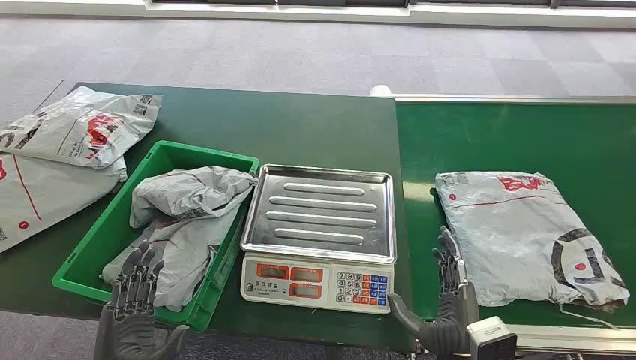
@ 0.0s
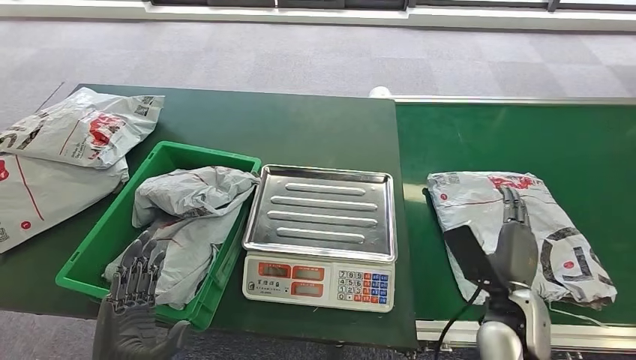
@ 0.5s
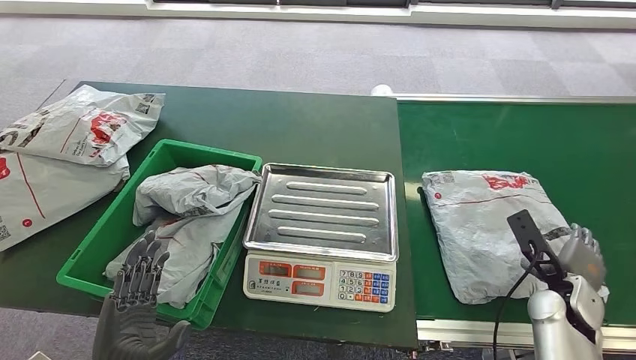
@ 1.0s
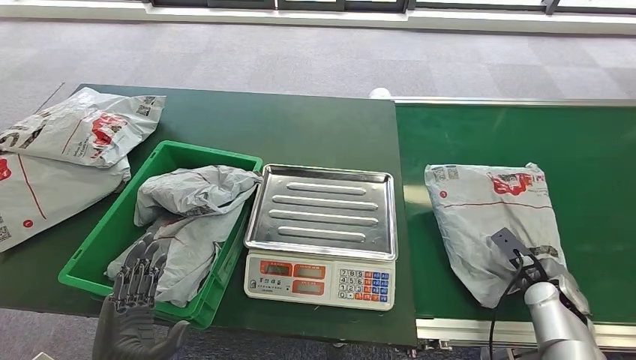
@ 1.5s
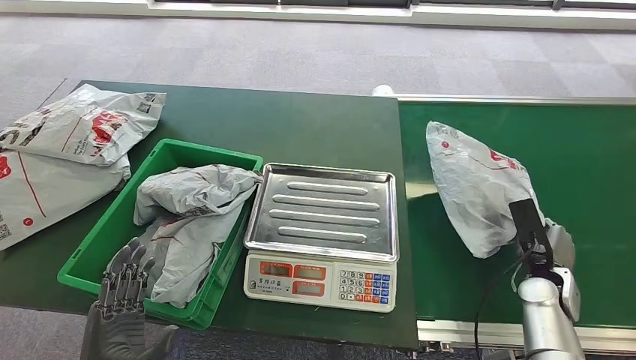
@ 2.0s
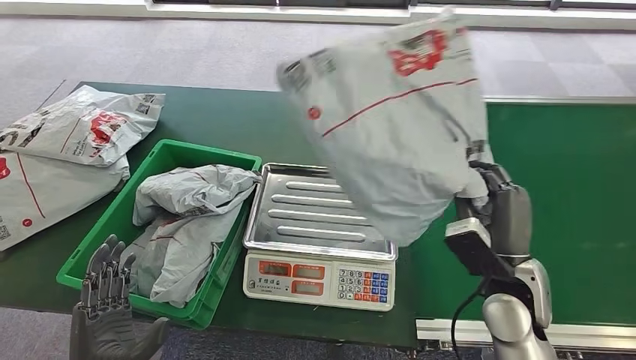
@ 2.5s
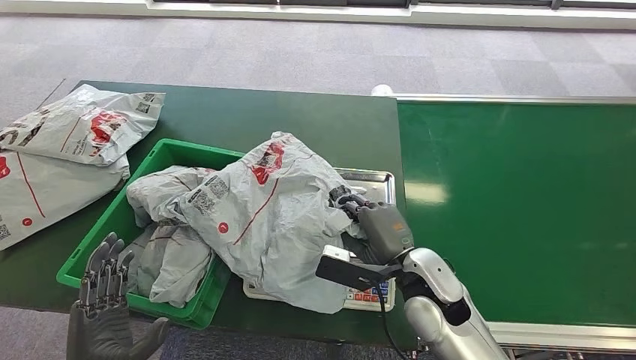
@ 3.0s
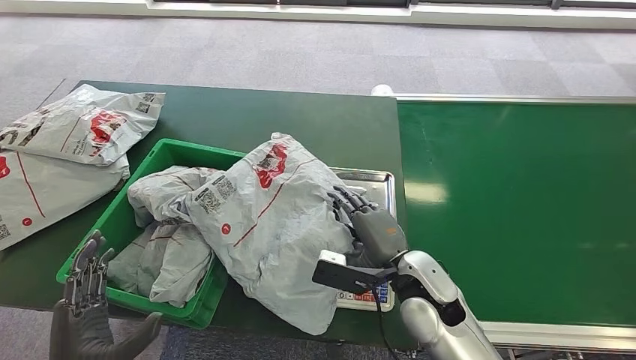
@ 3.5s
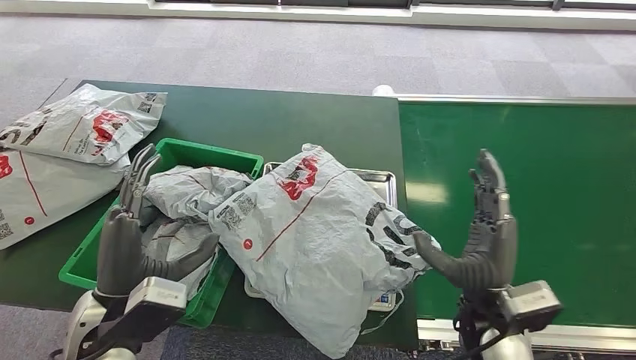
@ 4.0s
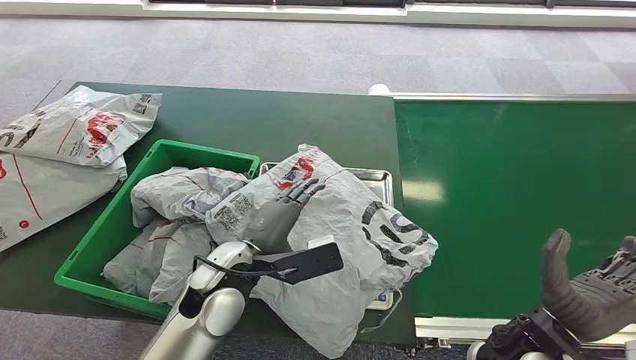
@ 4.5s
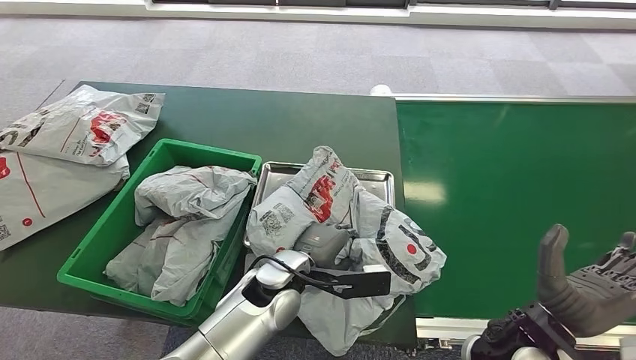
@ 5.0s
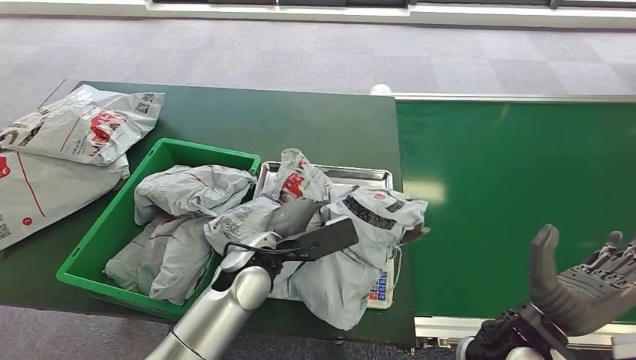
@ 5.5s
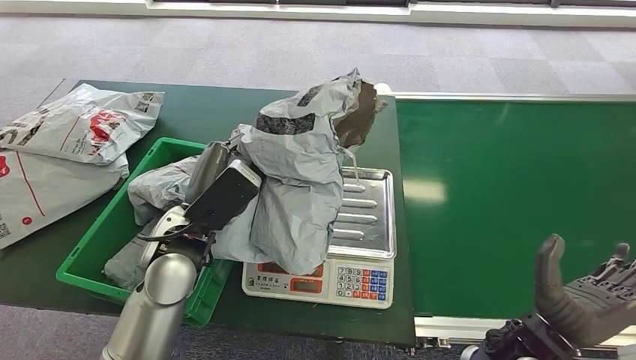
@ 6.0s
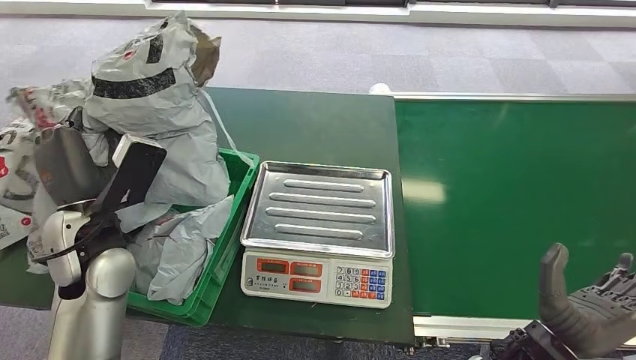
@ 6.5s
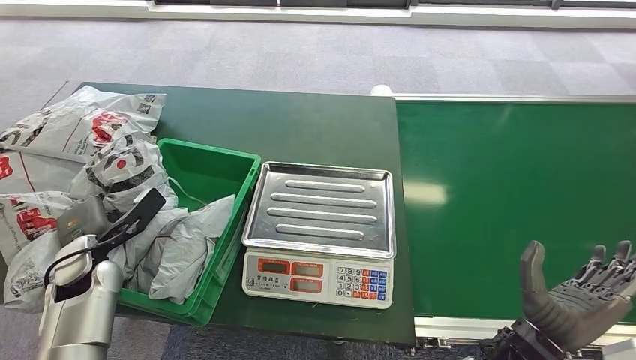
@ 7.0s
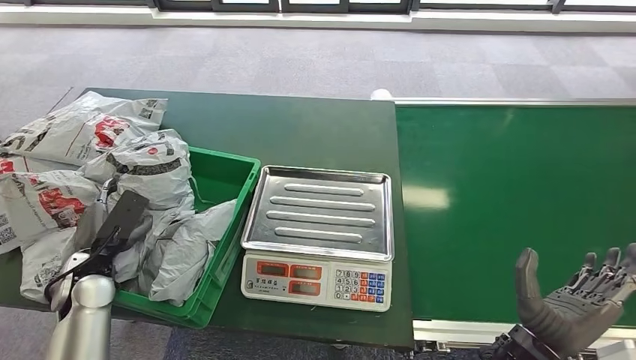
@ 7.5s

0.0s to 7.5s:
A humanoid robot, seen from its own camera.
Step, 0.0s to 2.0s: Pick up the package from the conveyor belt.
Step, 3.0s to 4.0s: Place the package onto the inbound machine.
Step, 4.5s to 6.0s: Pick up the package from the inbound machine.
Step, 6.5s to 7.5s: Place the package into the parcel locker.

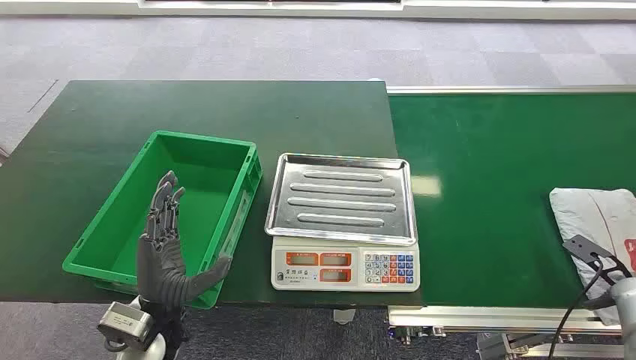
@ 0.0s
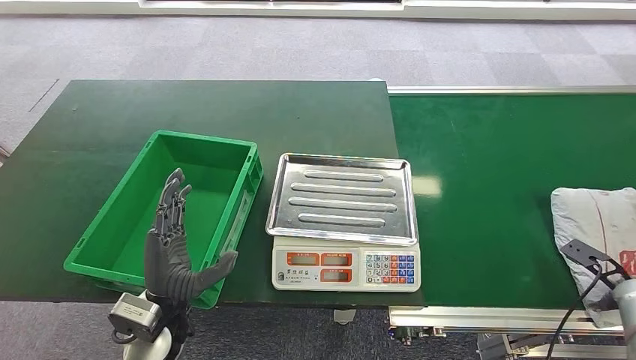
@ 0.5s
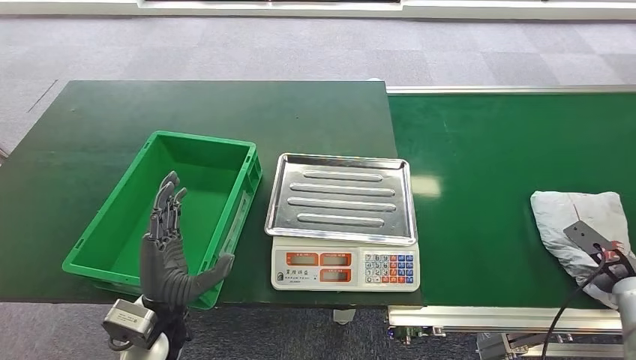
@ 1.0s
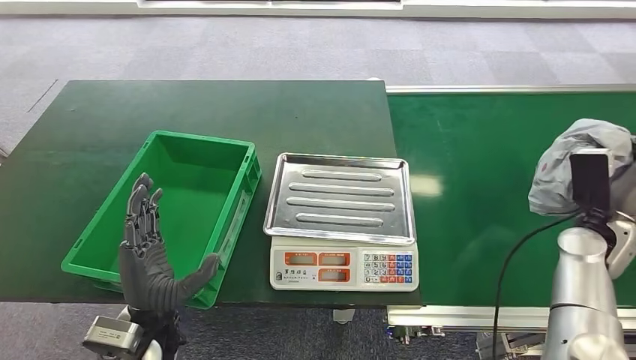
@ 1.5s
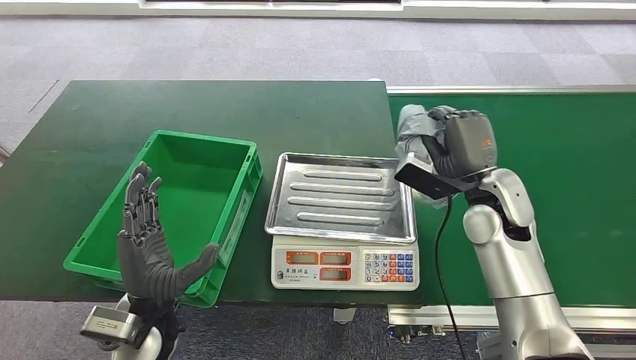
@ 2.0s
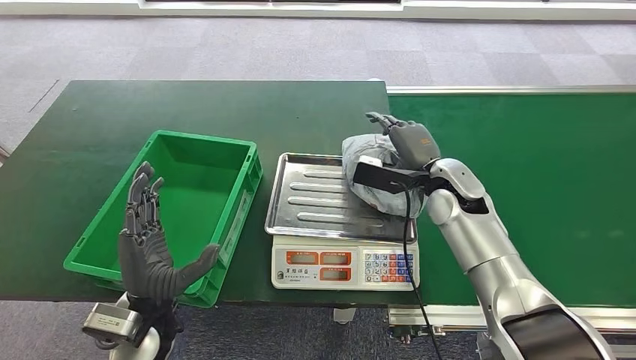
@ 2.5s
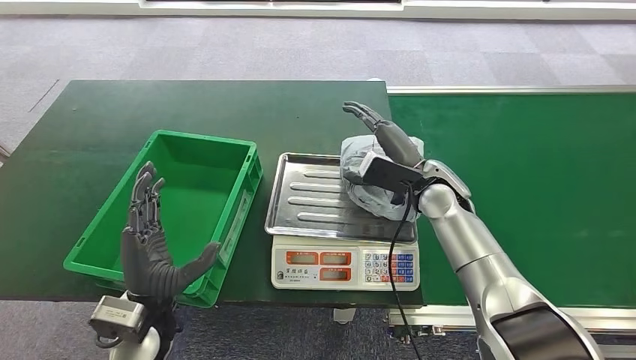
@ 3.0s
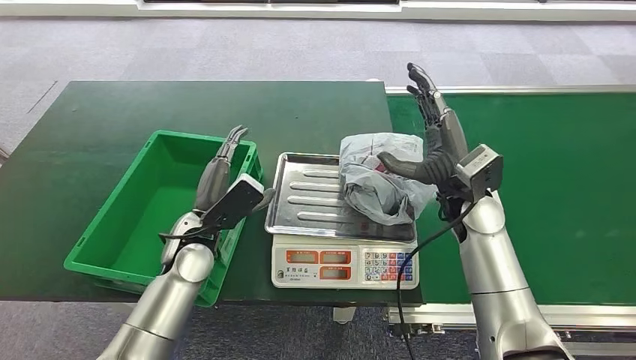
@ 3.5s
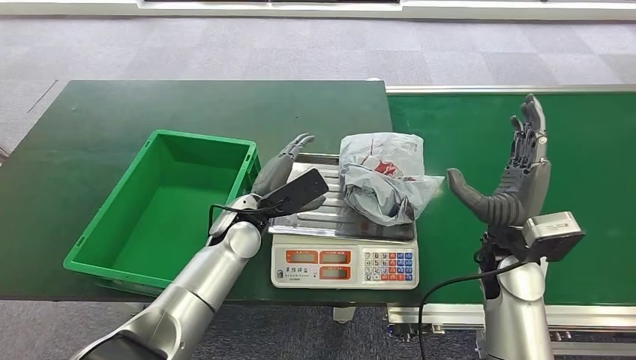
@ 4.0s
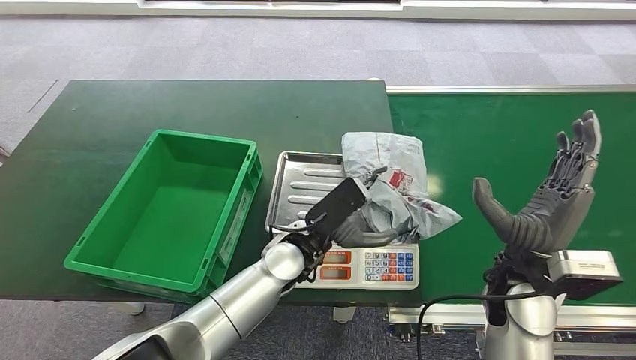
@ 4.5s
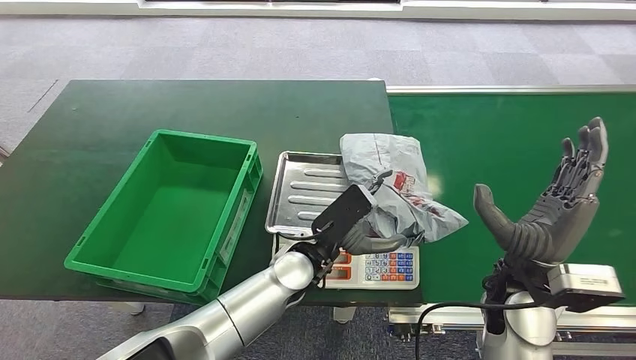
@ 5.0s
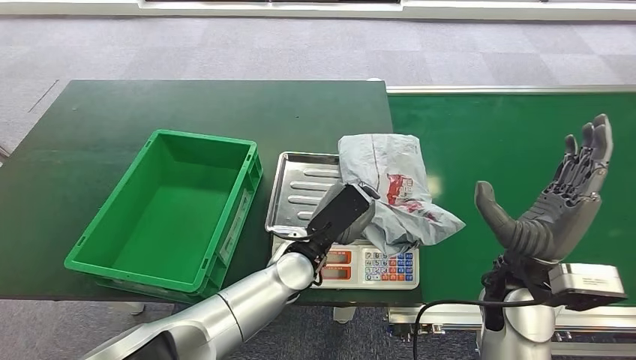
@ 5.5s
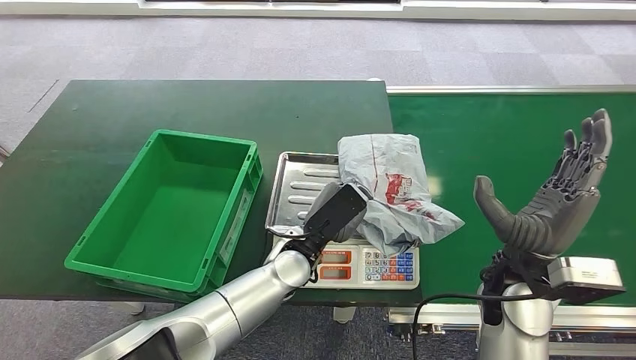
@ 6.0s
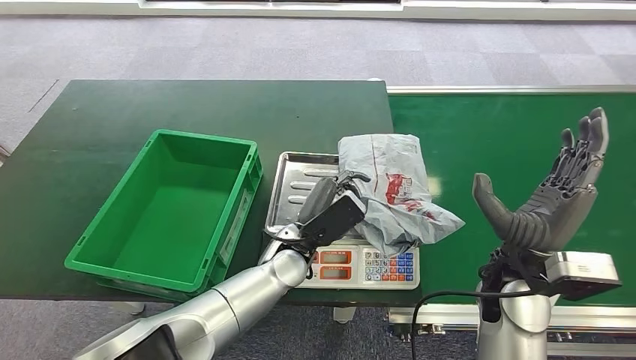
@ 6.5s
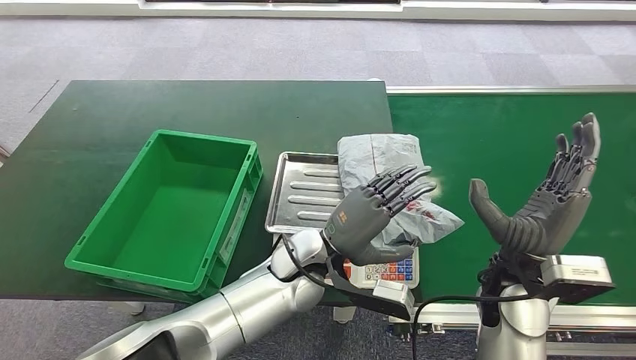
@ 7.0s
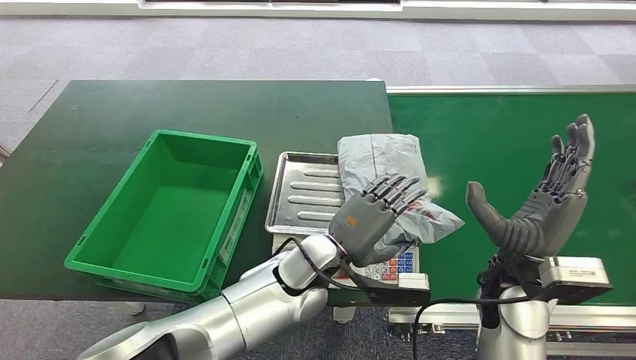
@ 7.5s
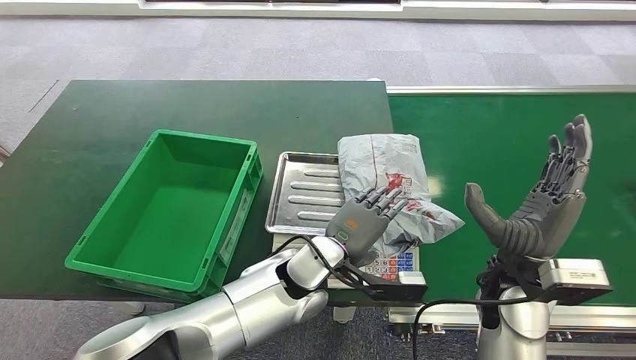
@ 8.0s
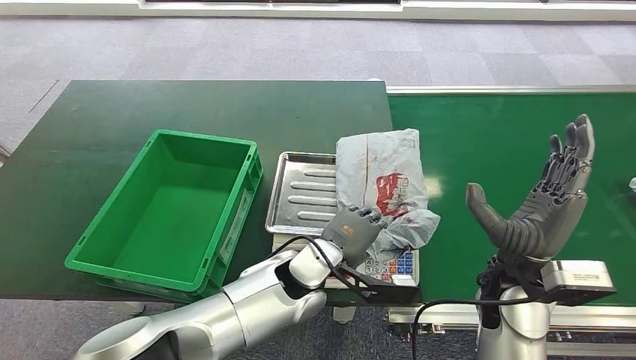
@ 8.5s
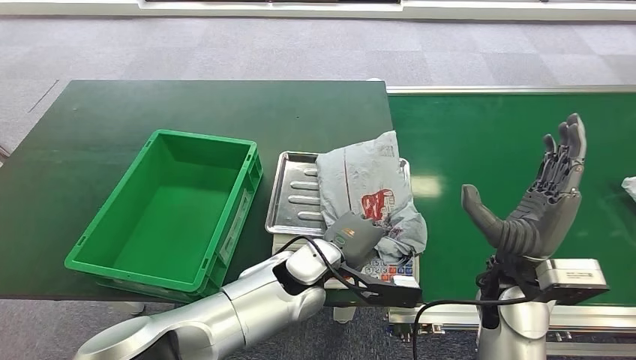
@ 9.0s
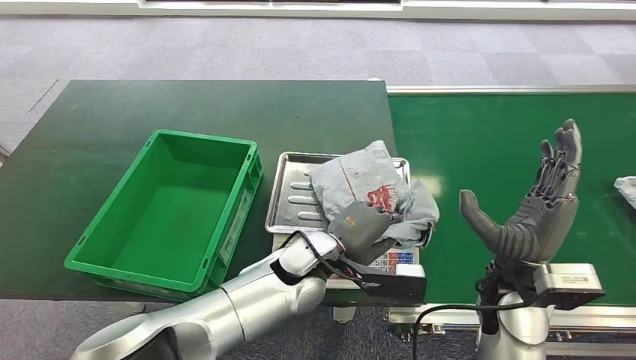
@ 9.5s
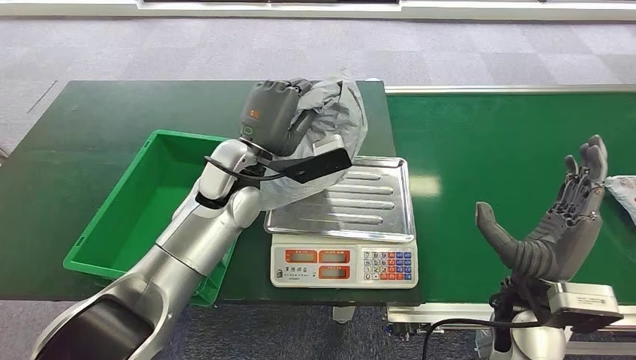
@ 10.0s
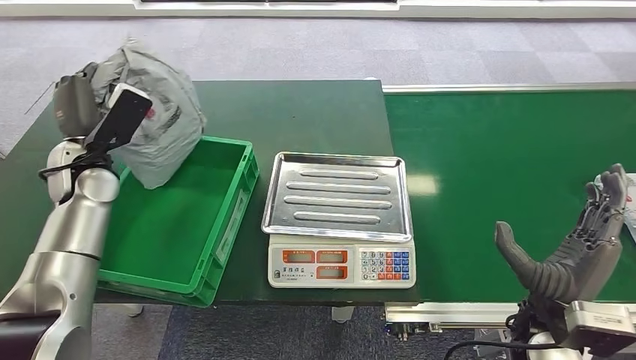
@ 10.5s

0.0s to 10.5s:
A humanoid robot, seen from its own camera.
Step, 0.0s to 1.5s: Pick up the package from the conveyor belt.
Step, 2.5s to 4.0s: Place the package onto the inbound machine.
Step, 4.5s to 10.0s: Pick up the package from the inbound machine.
4.0s to 6.5s: The left hand is displaced to the right by about 5 cm.
